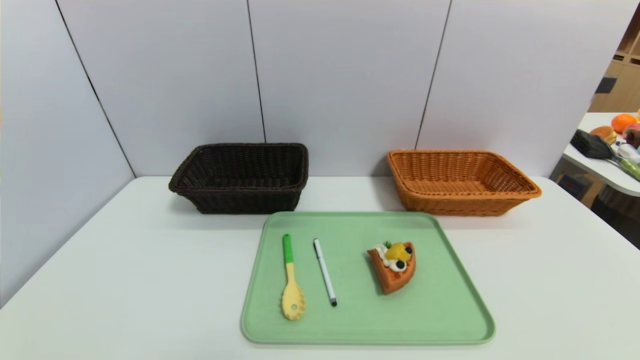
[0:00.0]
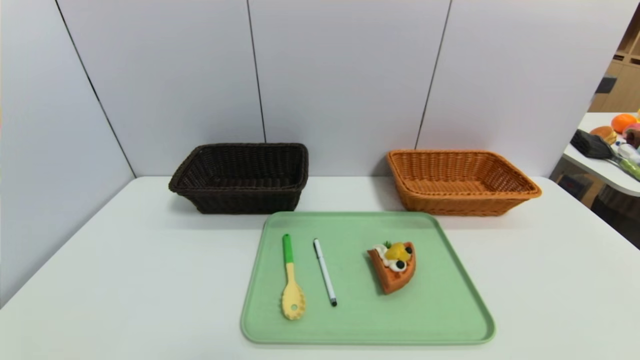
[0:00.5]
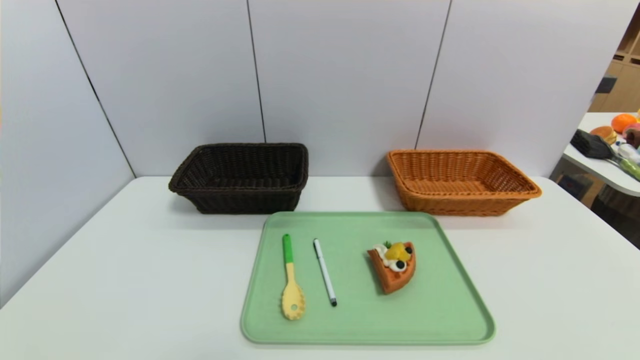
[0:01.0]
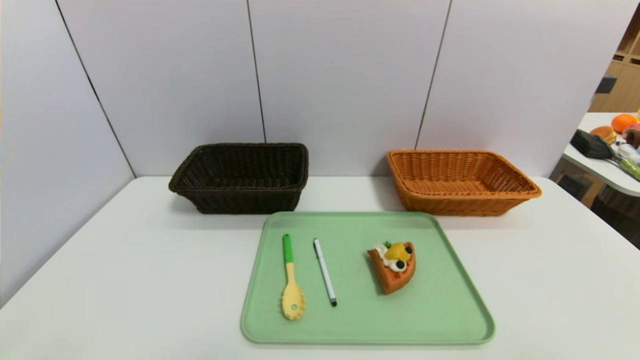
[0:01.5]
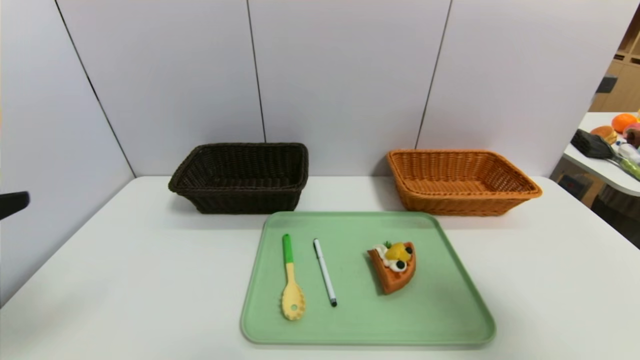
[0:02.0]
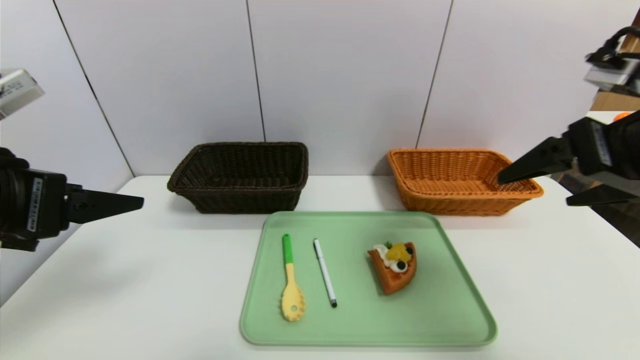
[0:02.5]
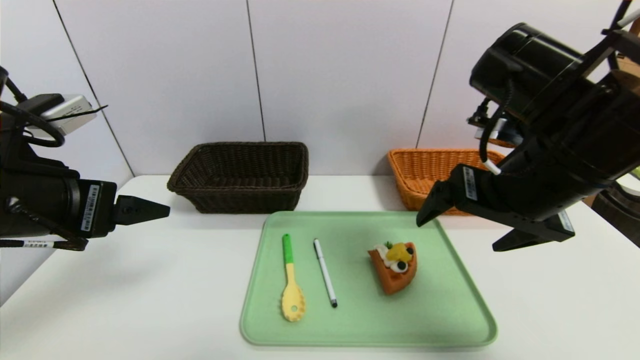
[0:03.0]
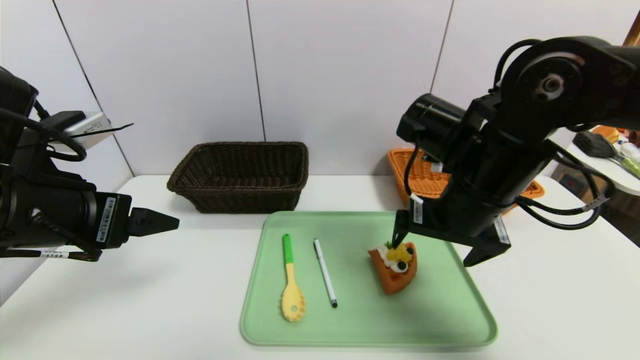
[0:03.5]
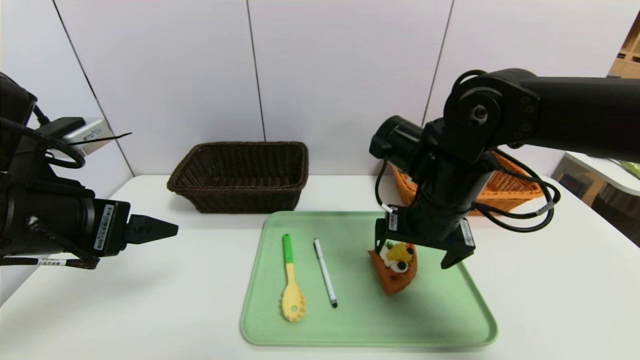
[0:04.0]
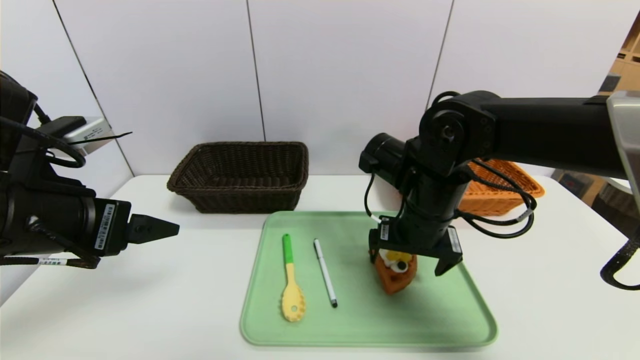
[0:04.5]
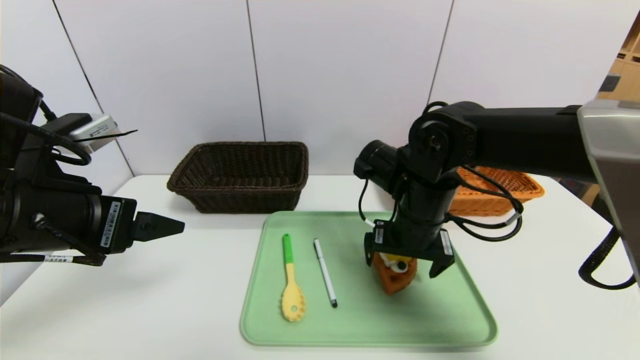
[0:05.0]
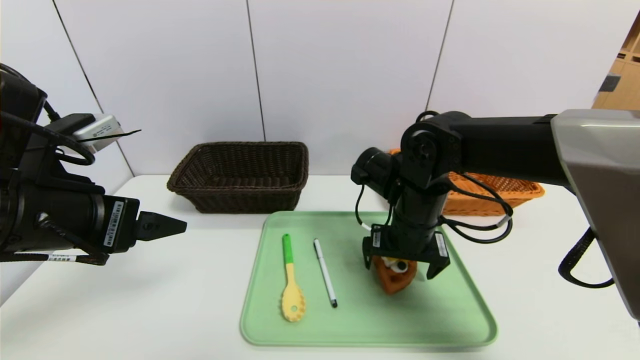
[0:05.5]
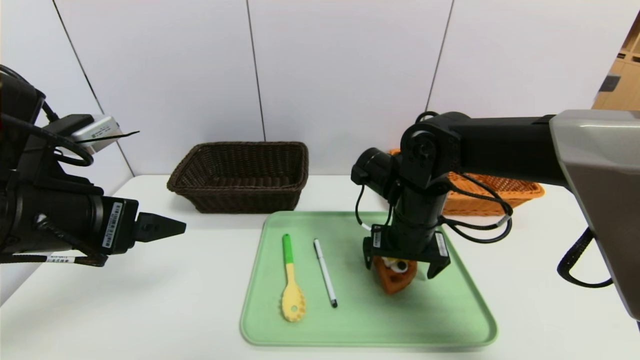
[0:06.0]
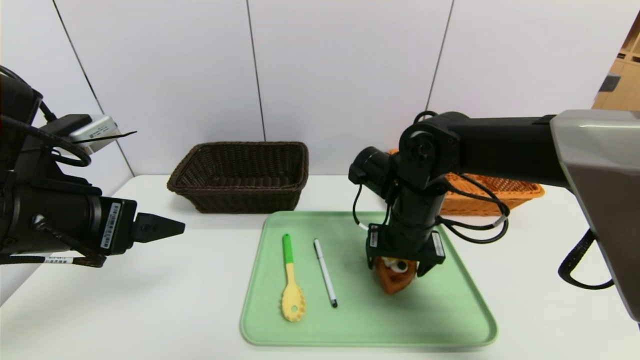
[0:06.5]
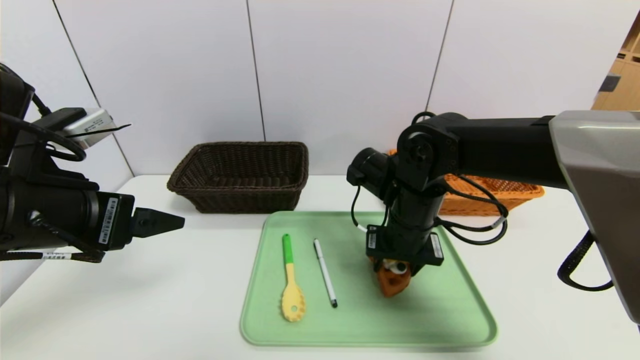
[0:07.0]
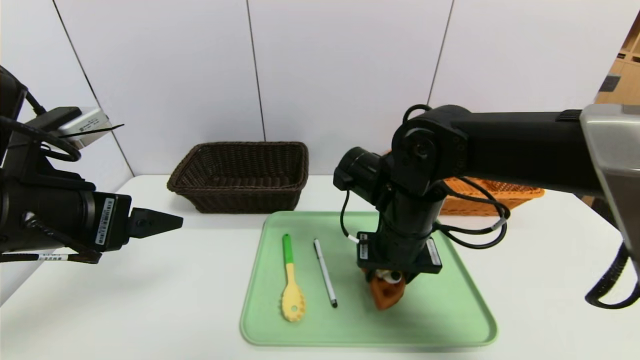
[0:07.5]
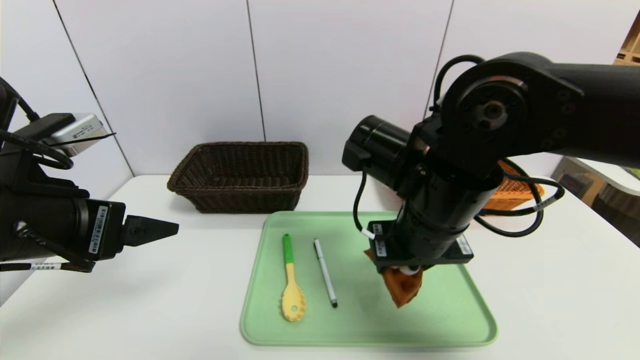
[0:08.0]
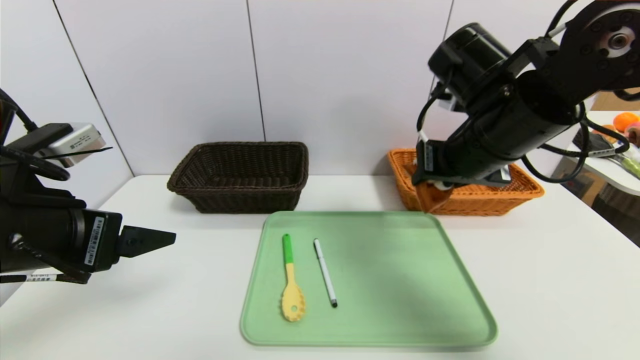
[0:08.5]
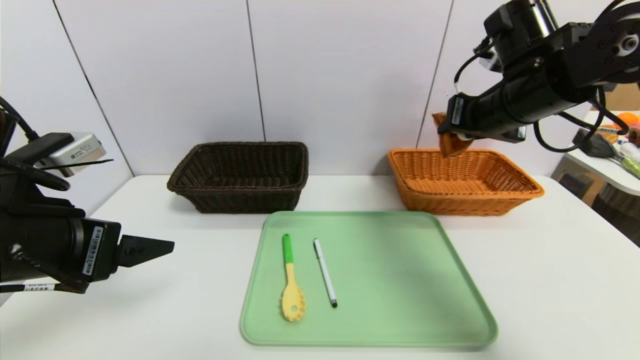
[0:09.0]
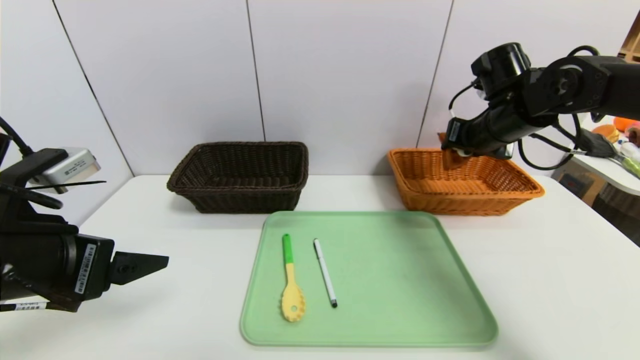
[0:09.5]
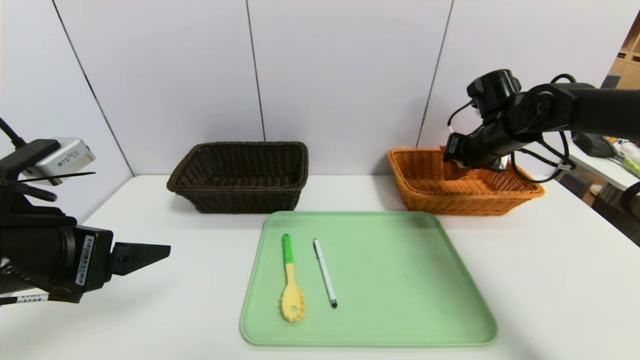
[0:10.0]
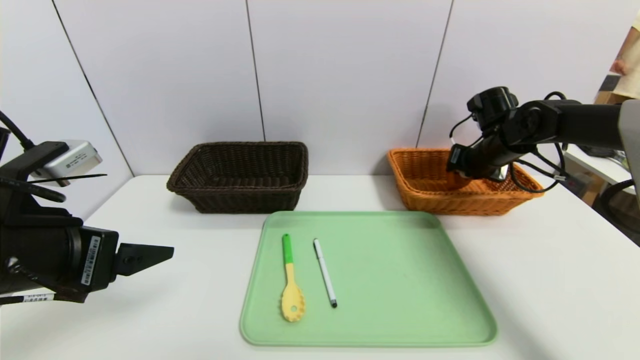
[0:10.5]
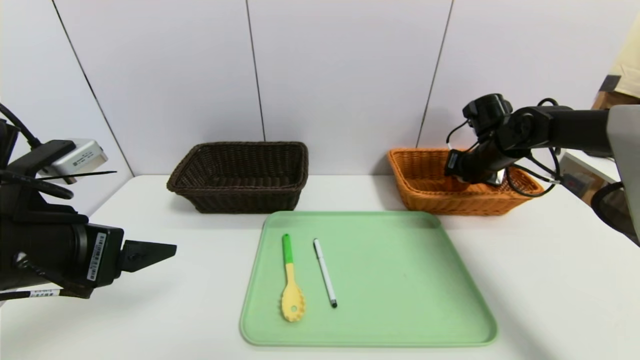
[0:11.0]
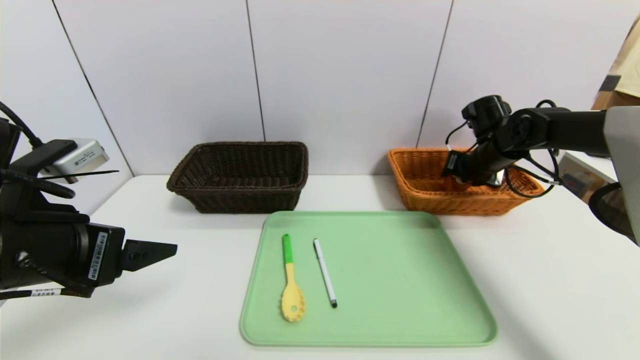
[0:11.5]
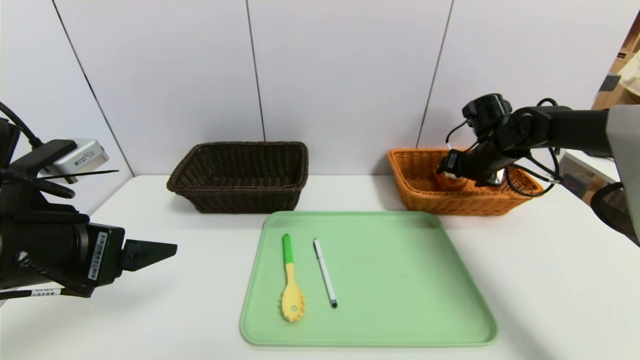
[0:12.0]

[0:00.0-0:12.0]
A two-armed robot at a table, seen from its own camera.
Task of the whole recording: place the food in the right basket with the right gripper, and place the non food items in the left basket with the left gripper.
0:00.0 to 0:02.0: Both grippers travel together upward, about 25 cm.
0:02.0 to 0:04.0: The left gripper goes approximately 10 cm forward. Meanwhile the right gripper is displaced to the left, forward and downward by approximately 30 cm.
0:04.0 to 0:06.0: The right gripper changes place by about 5 cm.
0:06.0 to 0:08.0: The right gripper goes roughly 10 cm upward and backward, and closes.
0:08.0 to 0:10.0: The right gripper is displaced forward and to the right by some 25 cm.
0:10.0 to 0:12.0: The right gripper opens up.

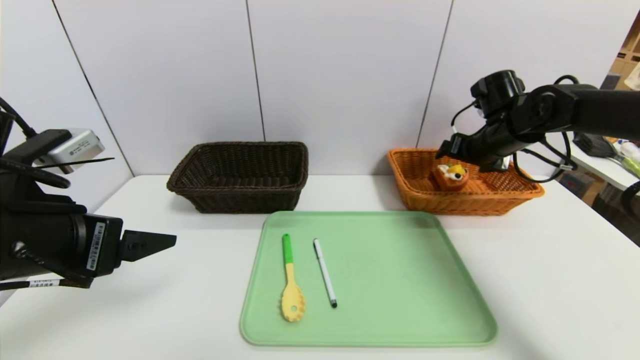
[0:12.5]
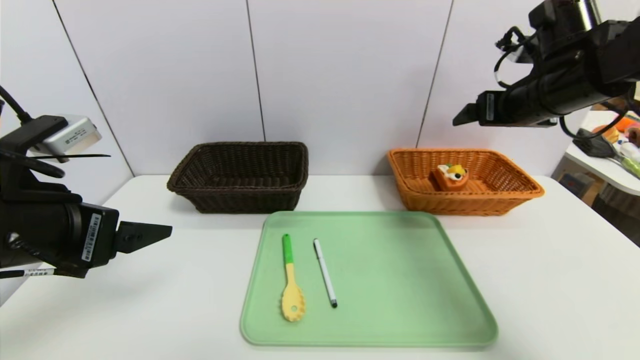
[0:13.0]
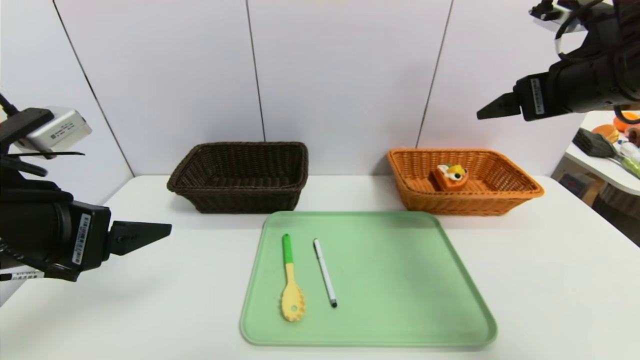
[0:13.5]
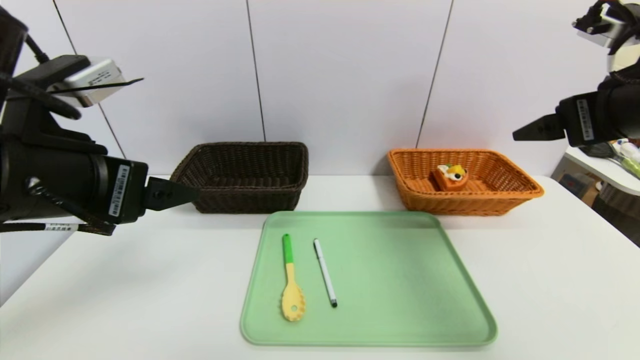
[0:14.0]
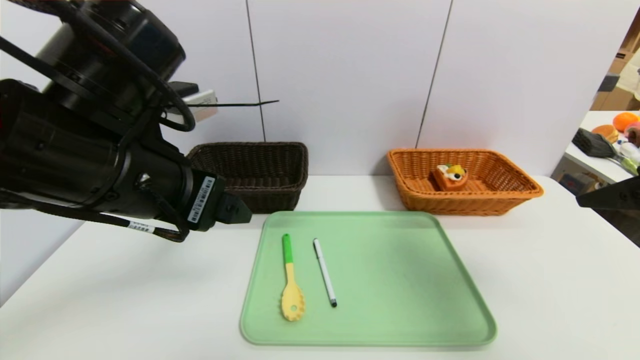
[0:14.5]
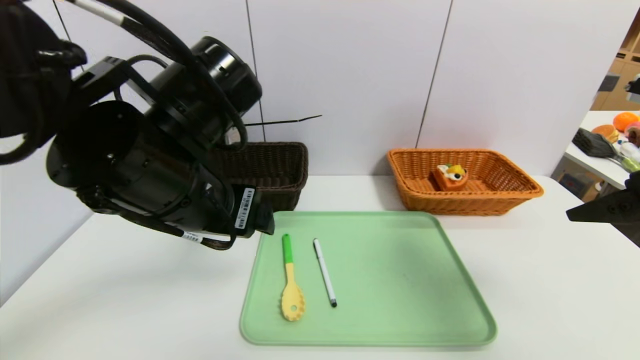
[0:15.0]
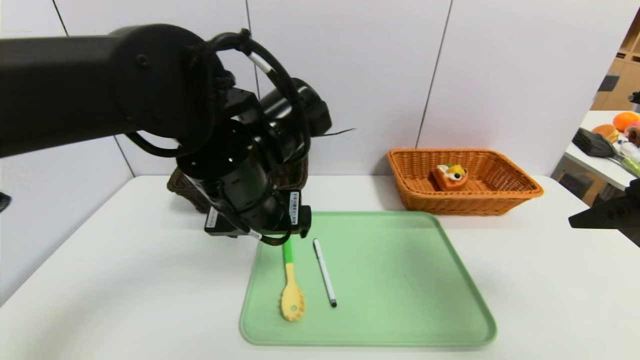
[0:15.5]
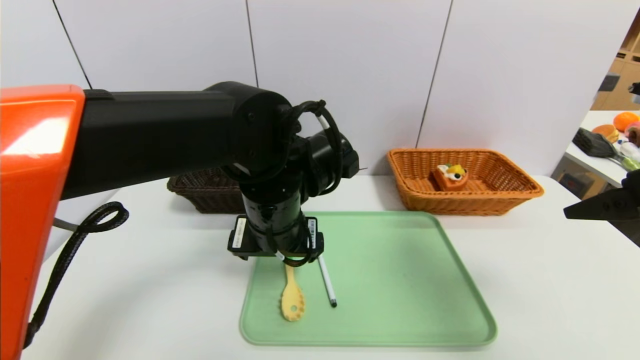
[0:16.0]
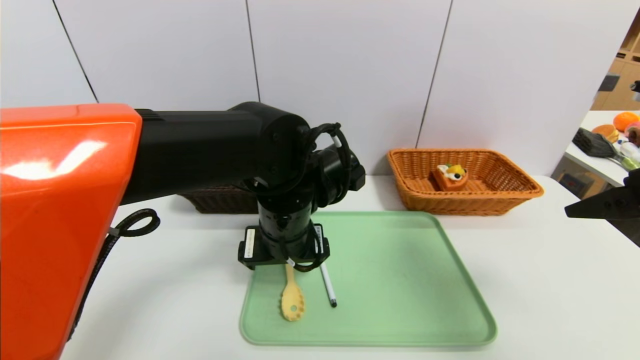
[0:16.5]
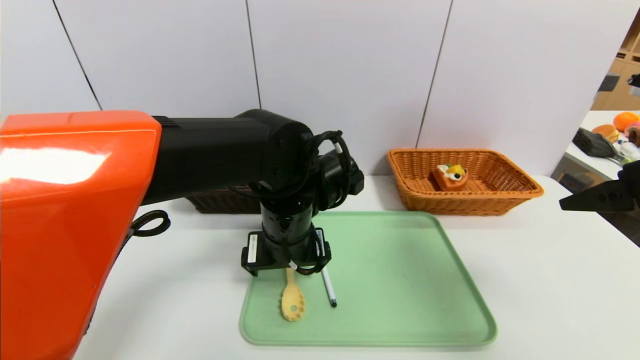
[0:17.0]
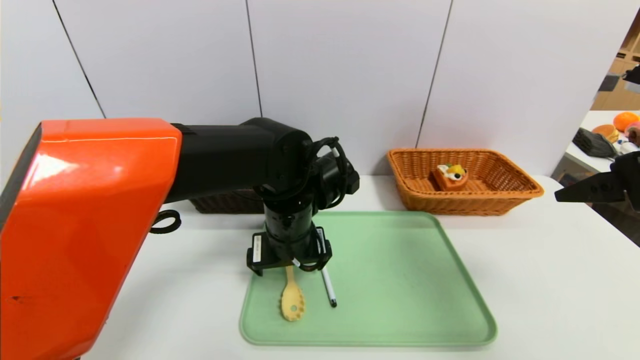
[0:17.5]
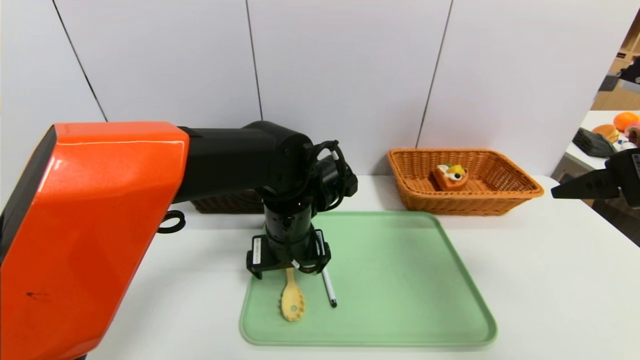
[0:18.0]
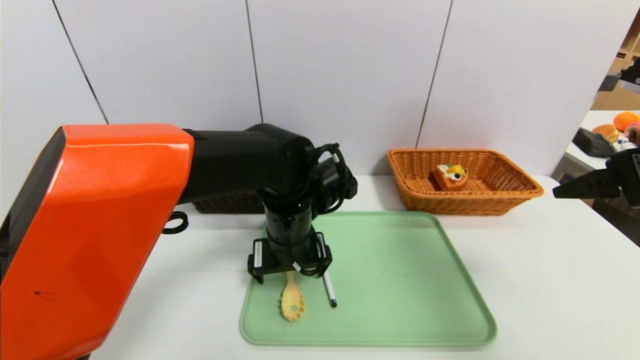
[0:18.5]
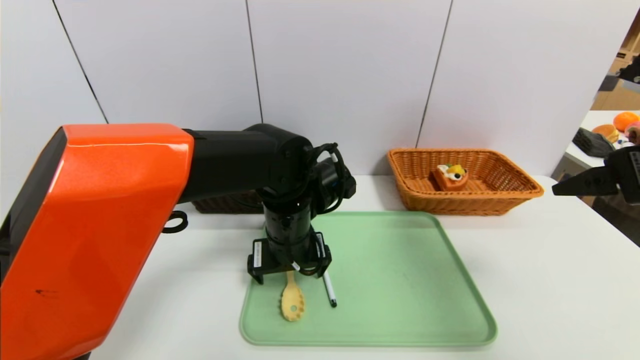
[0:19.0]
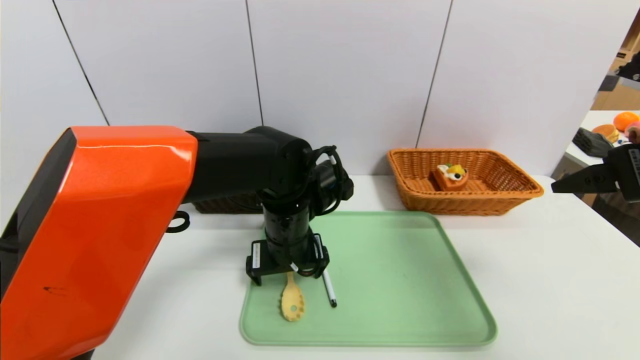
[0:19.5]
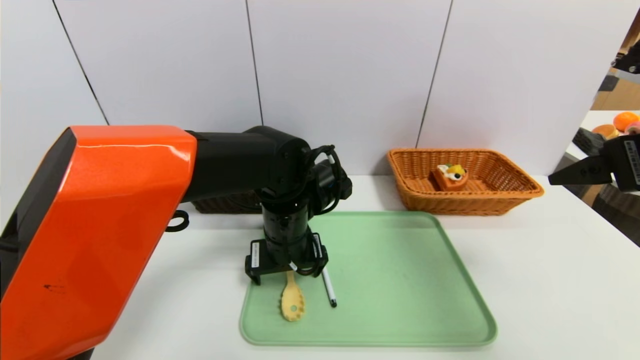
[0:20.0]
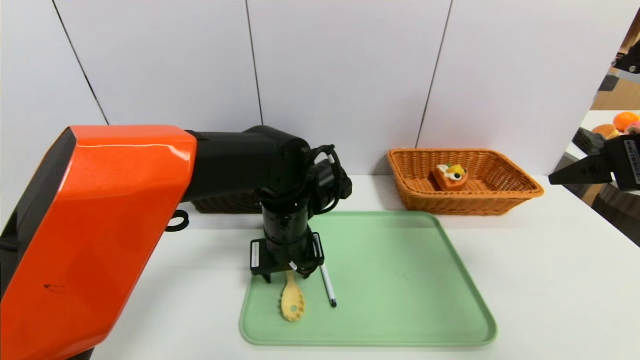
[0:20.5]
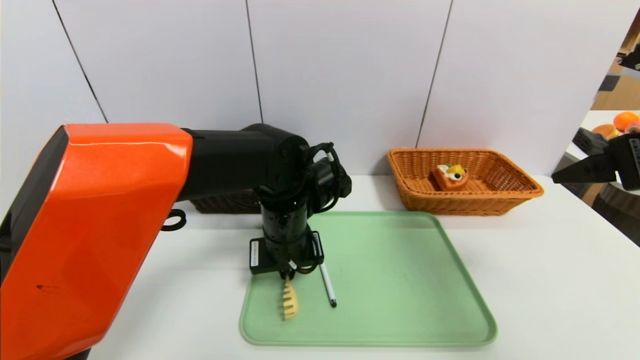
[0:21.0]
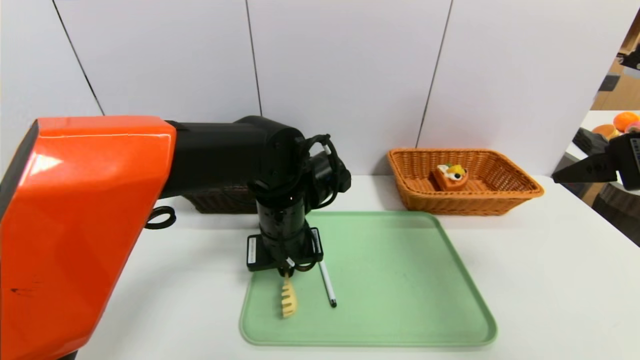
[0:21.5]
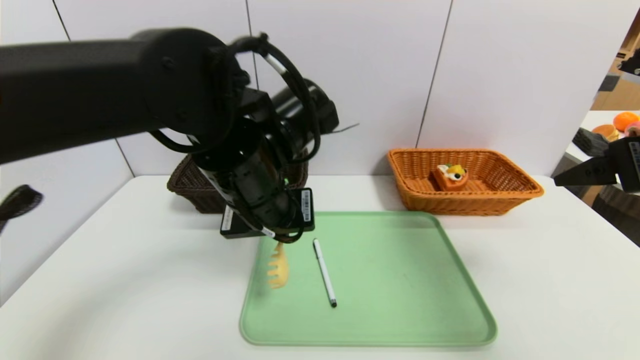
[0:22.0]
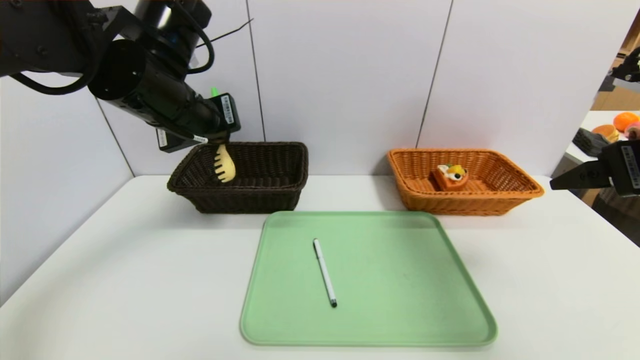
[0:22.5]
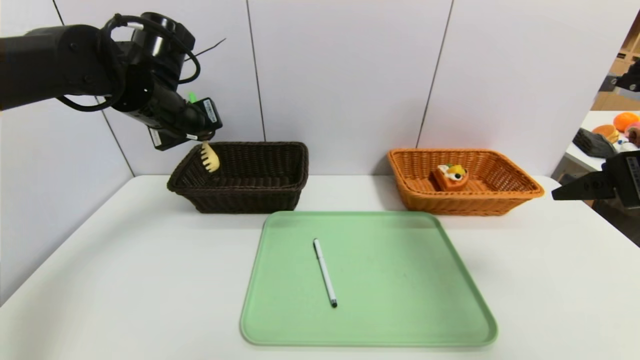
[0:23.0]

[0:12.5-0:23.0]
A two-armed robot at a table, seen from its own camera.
Task of the whole recording: place the food in the right basket with the right gripper, and place the non food items in the left basket with the left gripper.
0:12.5 to 0:14.5: The right gripper shifts about 25 cm backward; the left gripper shifts about 10 cm to the right.
0:14.5 to 0:16.5: The left gripper moves to the right, downward and forward, approximately 20 cm.
0:16.5 to 0:19.0: The grippers make only small movements.
0:19.0 to 0:21.0: The left gripper closes up.
0:21.0 to 0:23.0: The left gripper is displaced to the left, upward and forward by roughly 25 cm.
